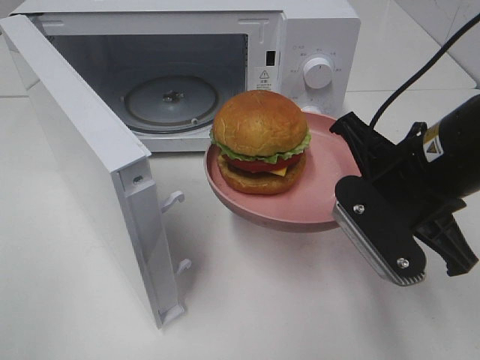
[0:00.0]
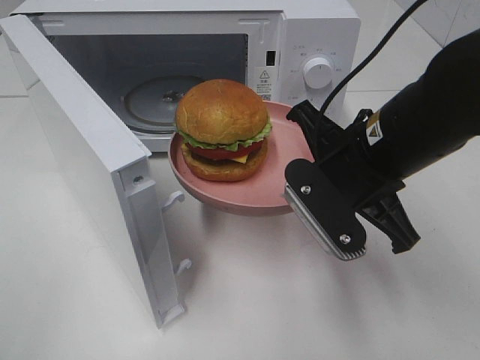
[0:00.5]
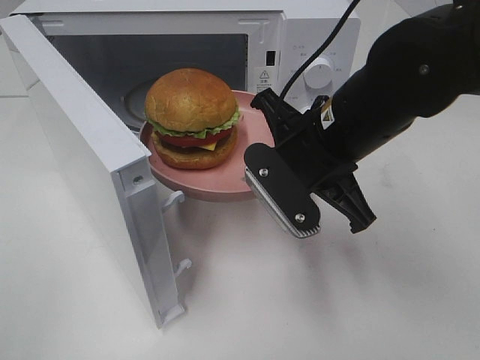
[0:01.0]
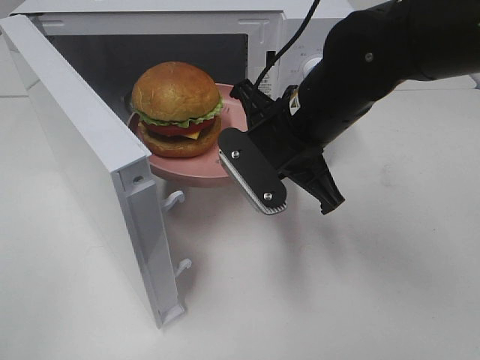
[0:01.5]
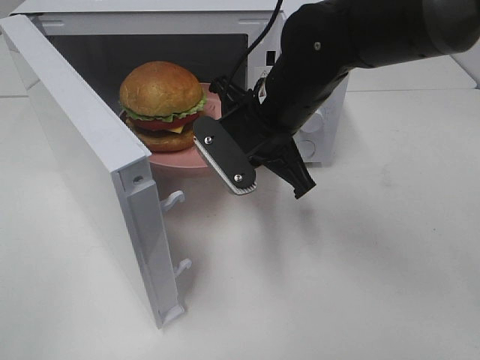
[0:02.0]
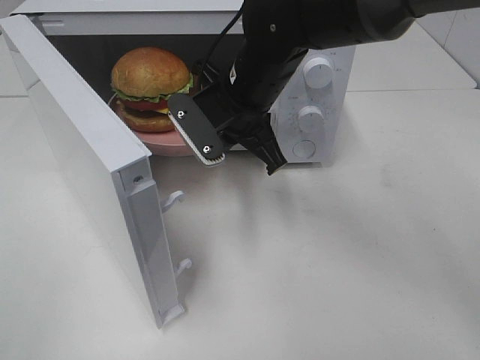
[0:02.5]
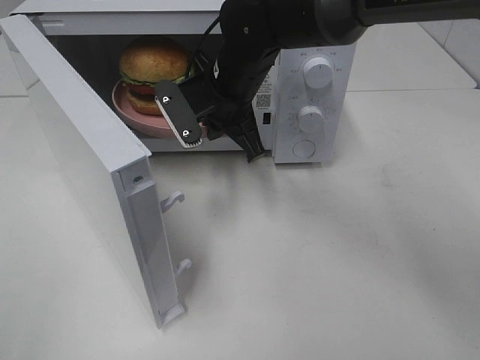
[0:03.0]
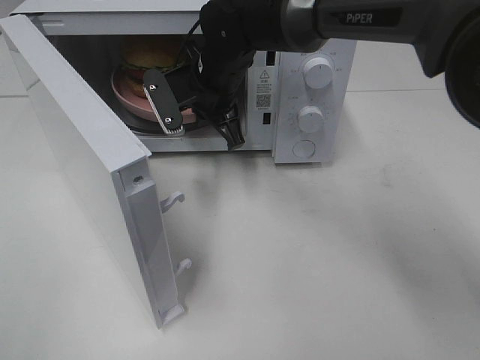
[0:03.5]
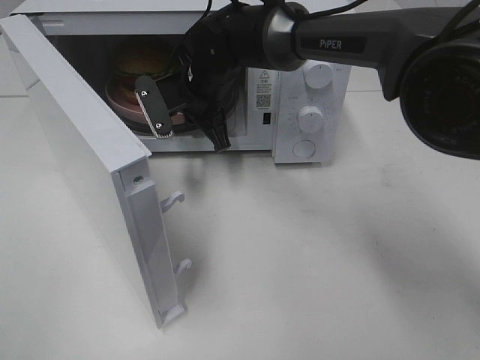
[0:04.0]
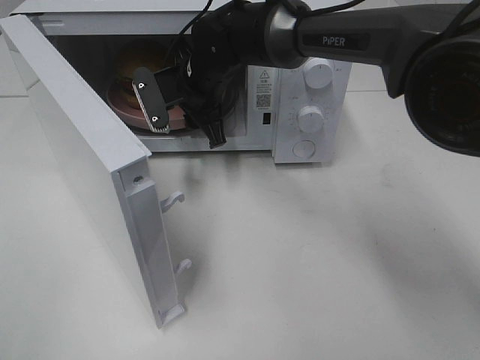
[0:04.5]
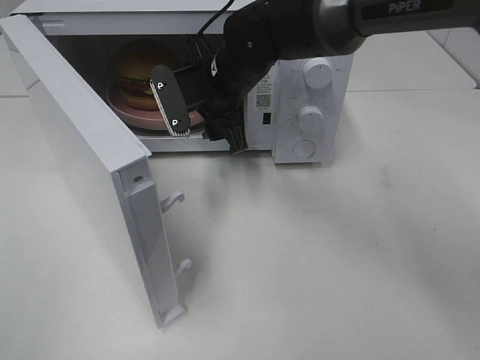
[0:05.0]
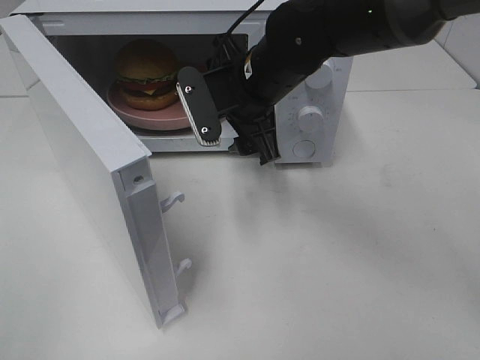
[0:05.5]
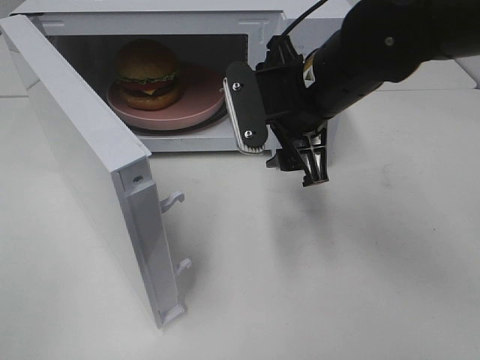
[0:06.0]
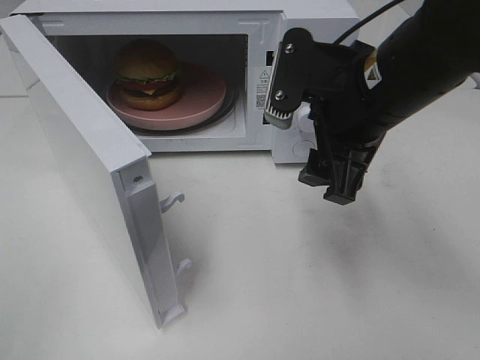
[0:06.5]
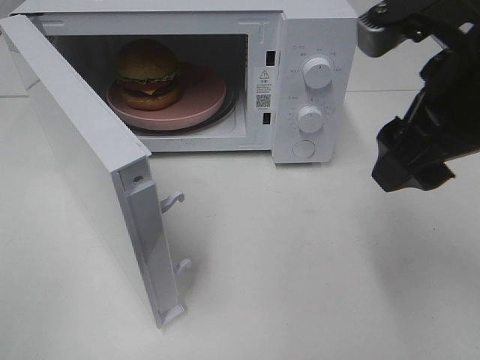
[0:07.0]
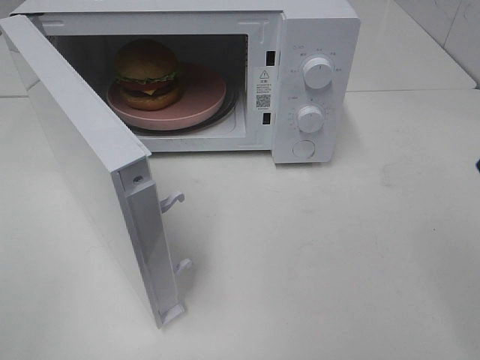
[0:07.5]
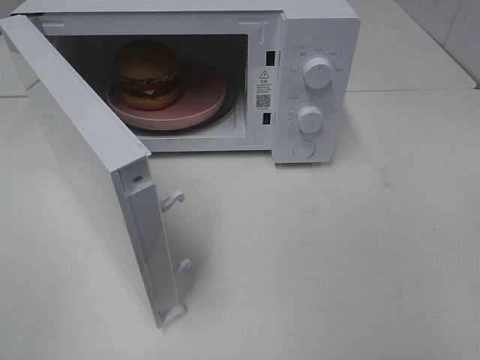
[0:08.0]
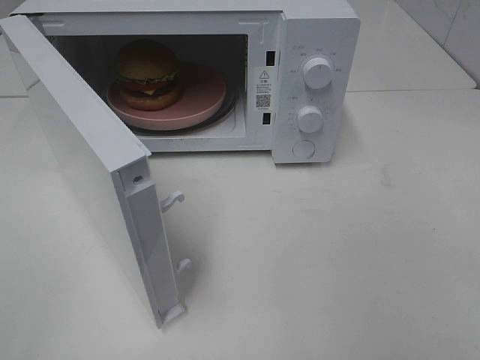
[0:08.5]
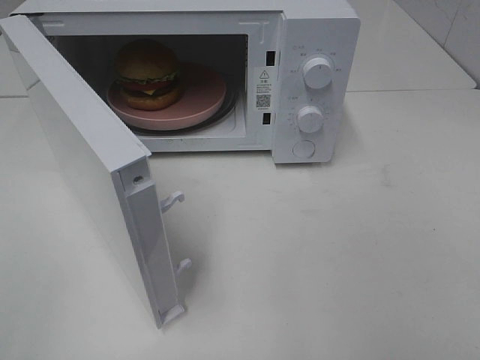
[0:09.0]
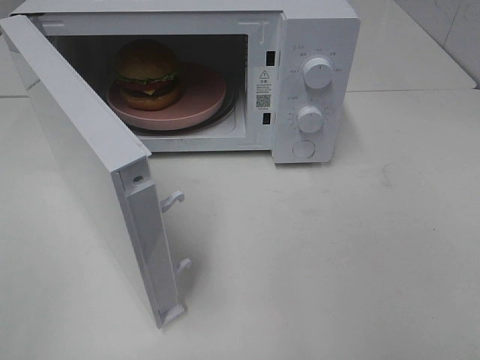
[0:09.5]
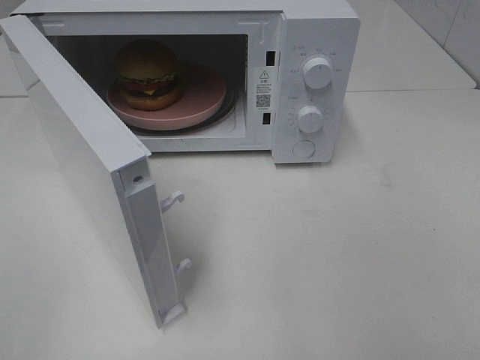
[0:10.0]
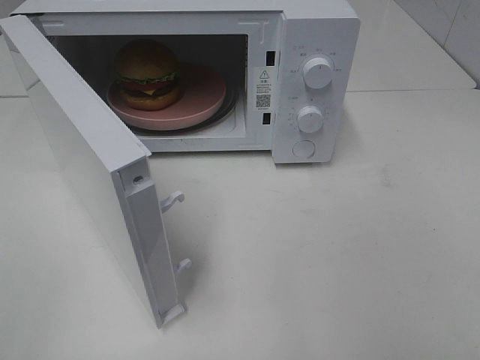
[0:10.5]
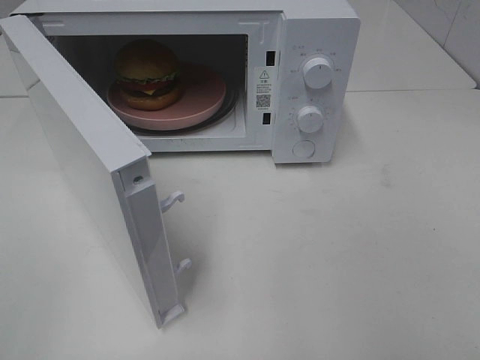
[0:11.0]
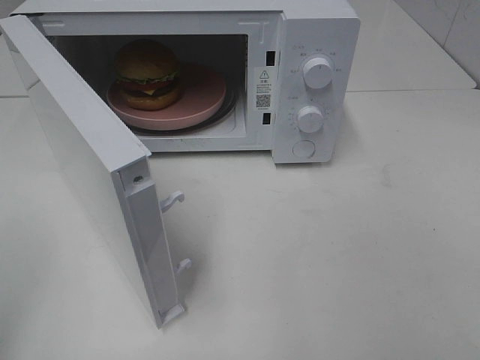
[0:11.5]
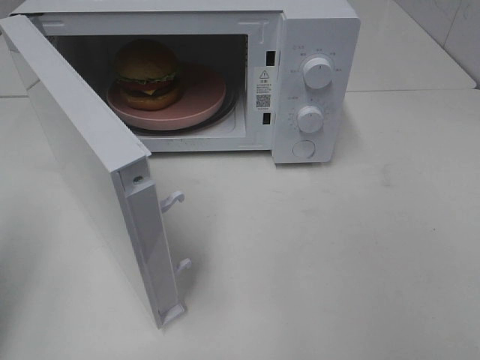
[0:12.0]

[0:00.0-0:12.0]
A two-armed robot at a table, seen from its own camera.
Task of the whole recording: Heat the burger.
Step, 0:00.0 to 0:04.5: Right hand: place the plate in the microwave.
0:00.0 to 0:02.0: The right gripper heads to the left and forward, covering about 15 cm.
0:02.0 to 0:04.0: The right gripper travels forward and to the left by roughly 15 cm.
0:04.0 to 0:06.0: The right gripper moves backward, to the right and upward, roughly 20 cm, and opens up.
0:06.0 to 0:08.0: The right gripper moves backward, to the right and upward, roughly 30 cm.
0:10.0 to 0:12.0: The left gripper heads forward, covering approximately 15 cm, and closes.

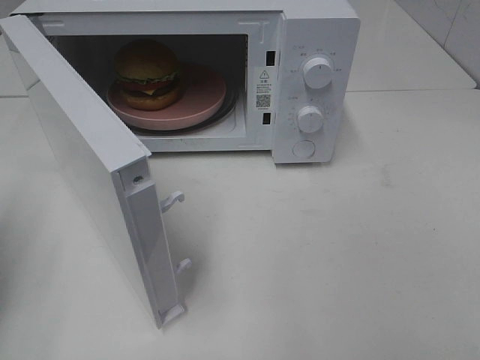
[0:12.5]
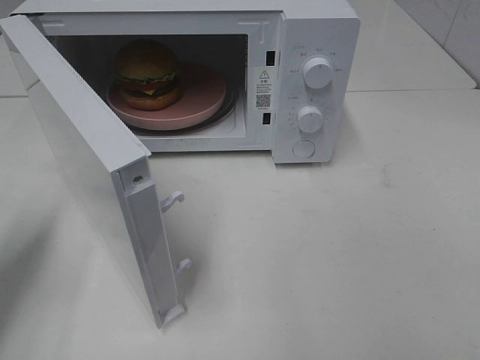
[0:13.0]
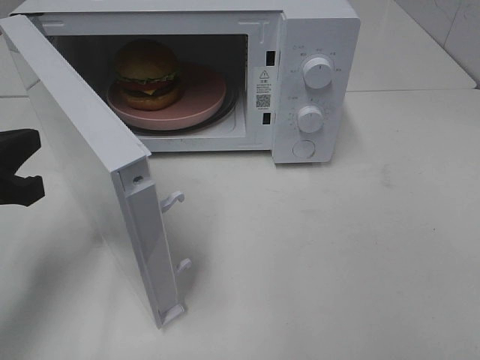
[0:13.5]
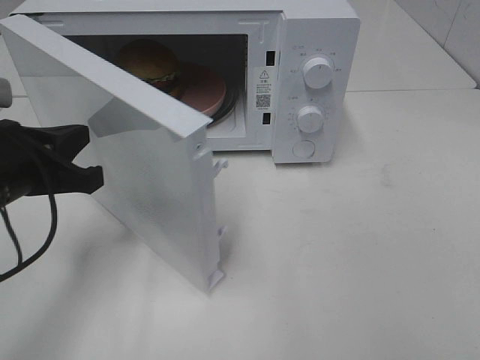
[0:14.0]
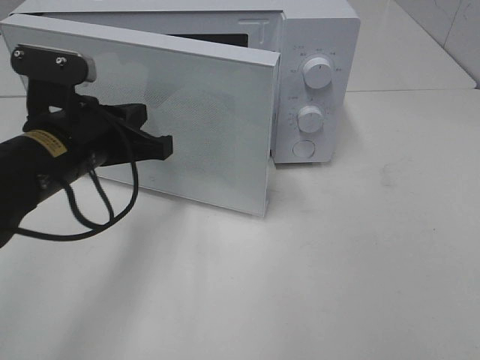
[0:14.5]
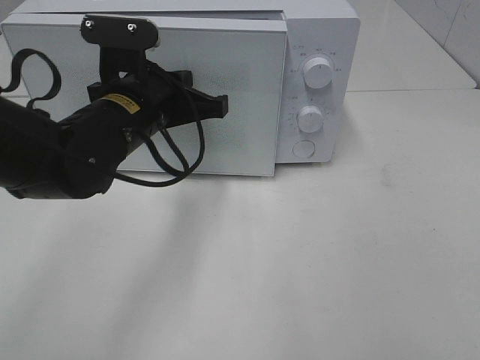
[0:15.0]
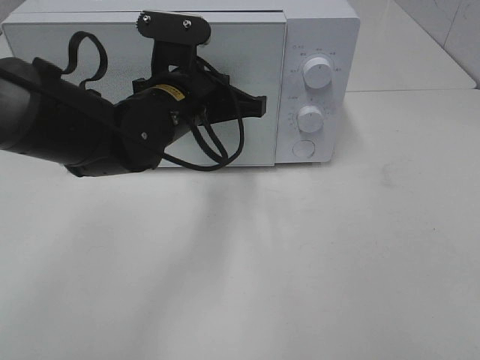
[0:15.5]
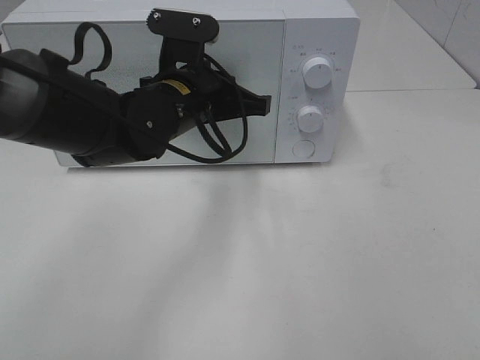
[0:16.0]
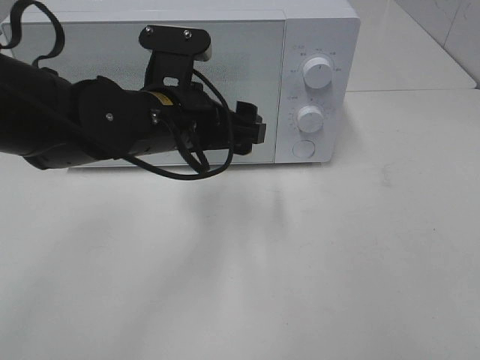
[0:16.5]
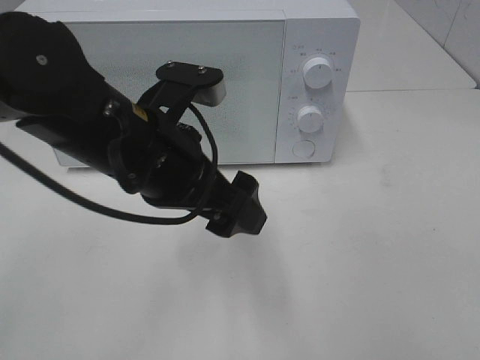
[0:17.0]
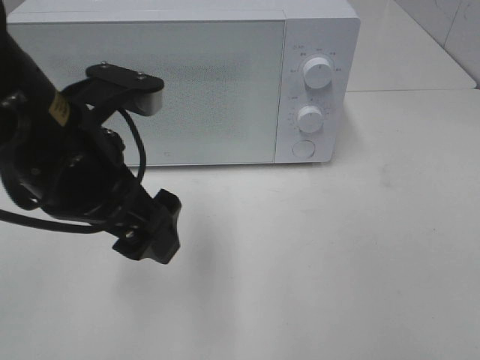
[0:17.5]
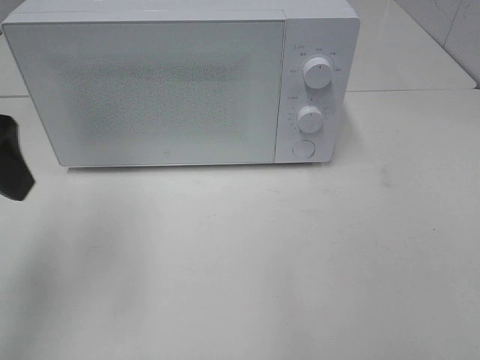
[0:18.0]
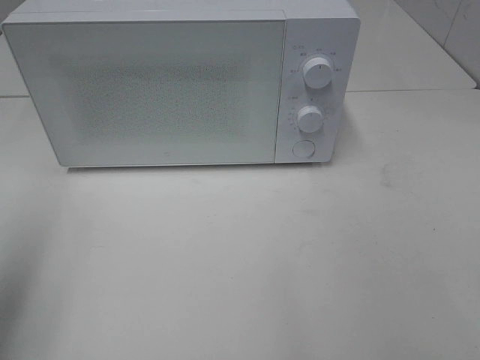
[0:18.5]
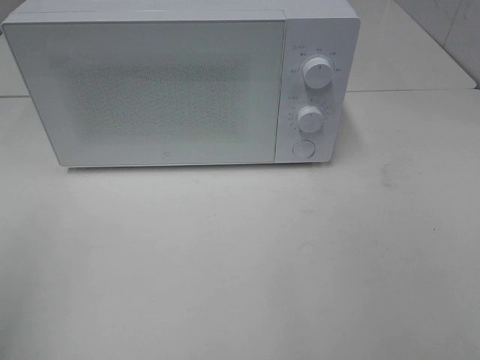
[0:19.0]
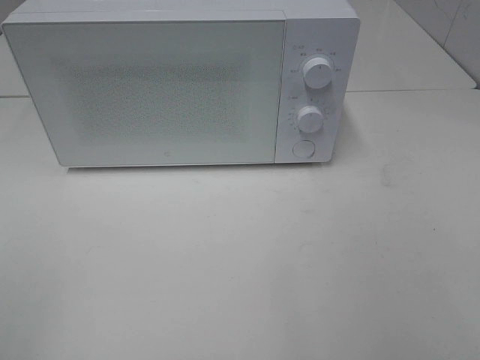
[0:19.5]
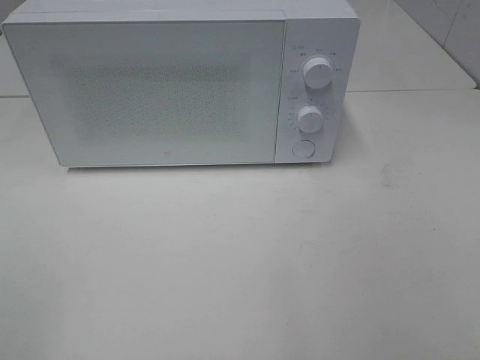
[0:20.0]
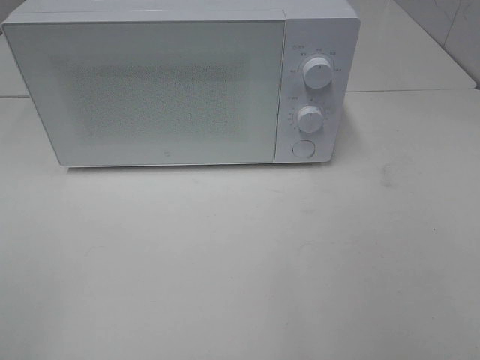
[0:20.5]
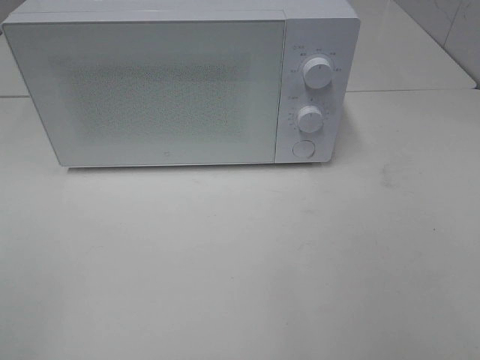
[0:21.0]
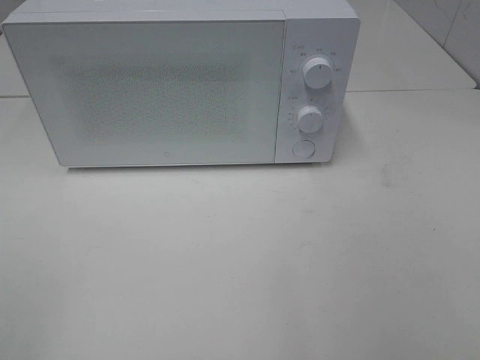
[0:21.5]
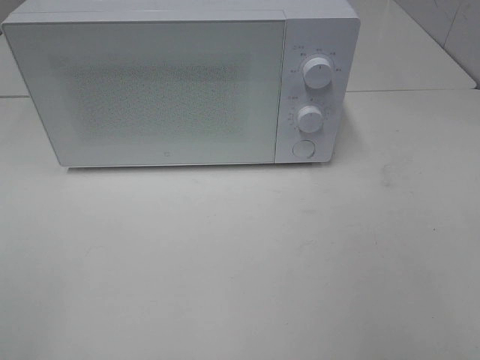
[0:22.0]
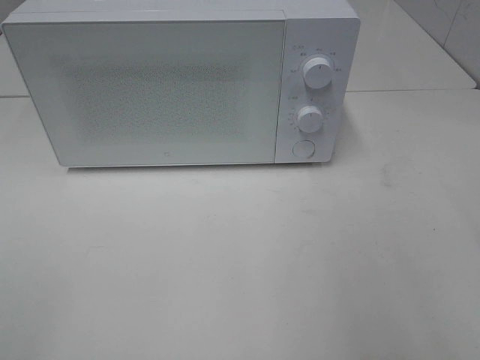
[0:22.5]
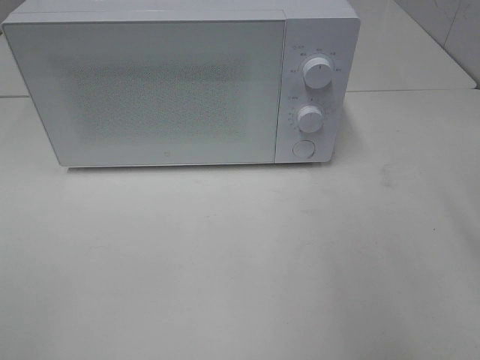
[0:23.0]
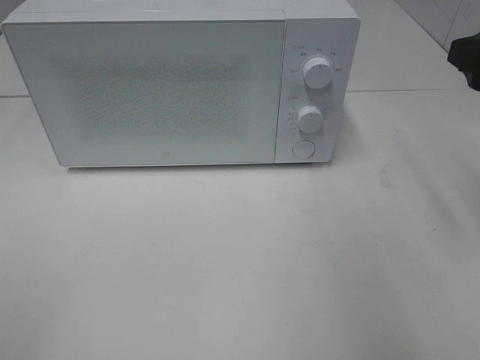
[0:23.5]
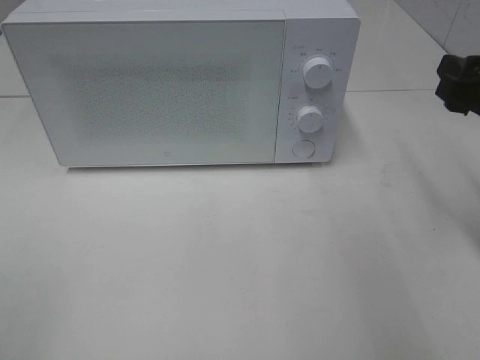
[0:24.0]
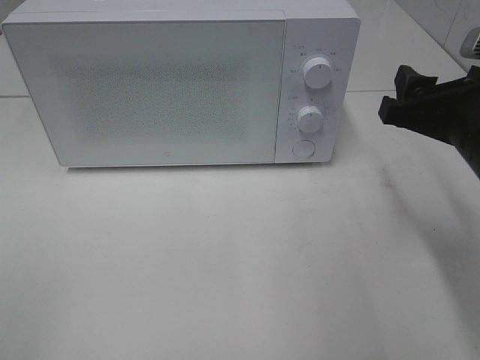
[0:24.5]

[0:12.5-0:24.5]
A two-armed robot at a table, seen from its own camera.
Task of the whole recording: Heat the burger.
Step, 0:12.5 to 0:16.5: Left hand: close the microwave door.
0:12.5 to 0:14.5: The left gripper shifts roughly 20 cm to the right and forward.
0:14.5 to 0:16.5: The left gripper goes approximately 10 cm to the right, and opens.
0:16.5 to 0:18.5: The left gripper is displaced to the left, backward and upward by about 30 cm.
0:18.5 to 0:20.5: The left gripper shifts roughly 15 cm backward.
0:22.5 to 0:24.5: The right gripper is displaced forward, downward and to the left by roughly 15 cm.

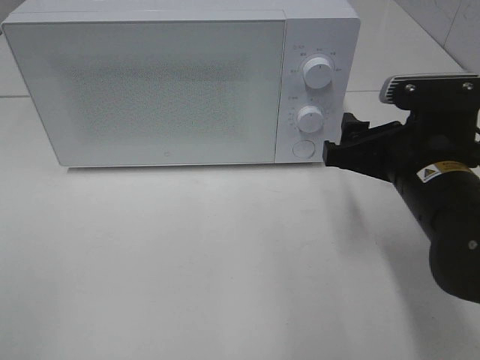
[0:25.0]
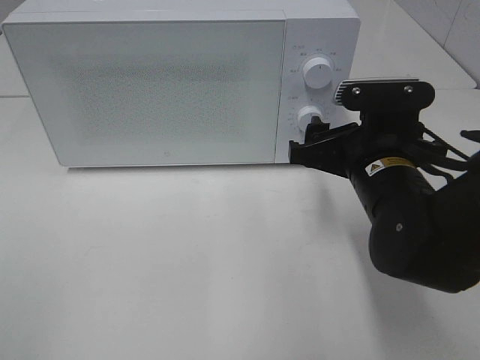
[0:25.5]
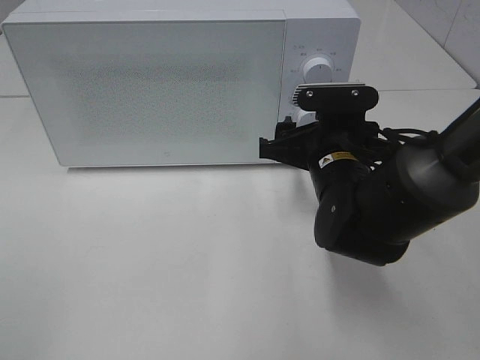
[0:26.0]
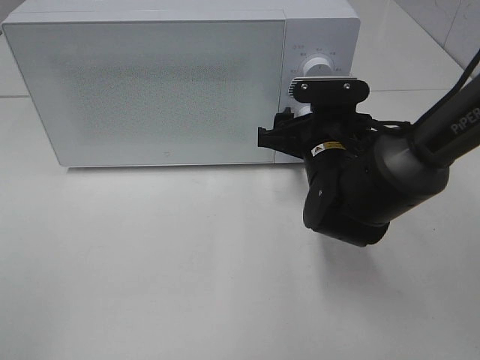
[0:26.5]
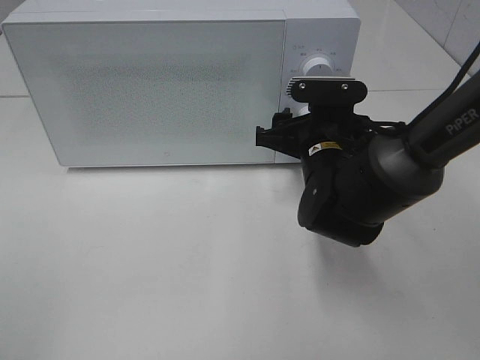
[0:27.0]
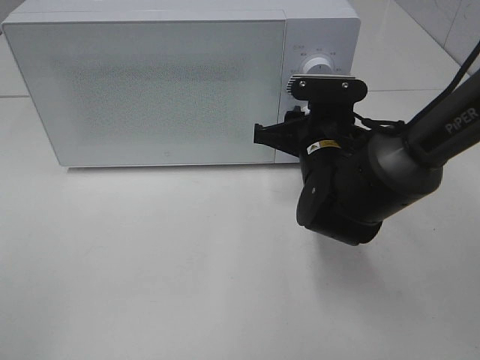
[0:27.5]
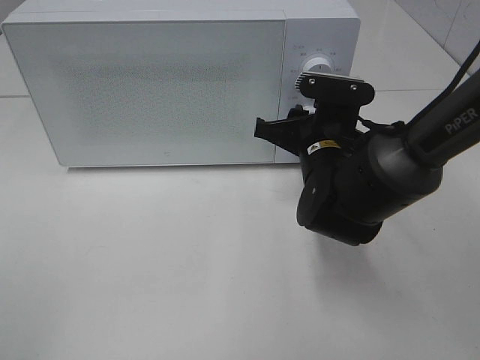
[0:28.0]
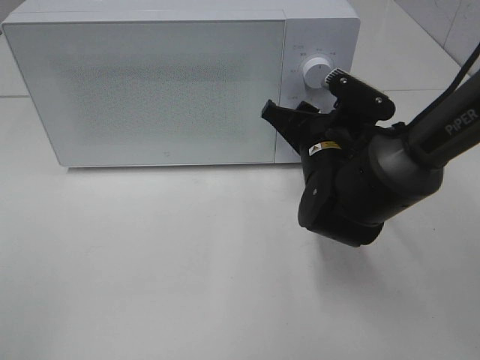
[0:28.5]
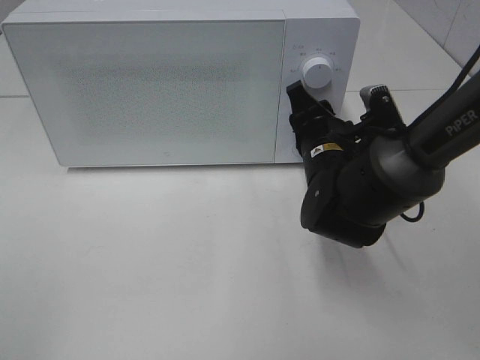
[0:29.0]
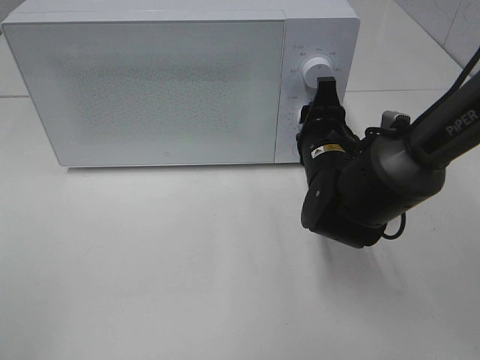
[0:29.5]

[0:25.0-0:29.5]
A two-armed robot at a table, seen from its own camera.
Task of the whole recording: Heat the burger.
0:25.0 to 0:27.0: The right gripper travels forward, to the left and downward by roughly 10 cm.
